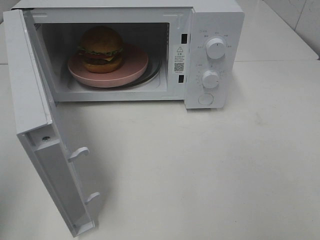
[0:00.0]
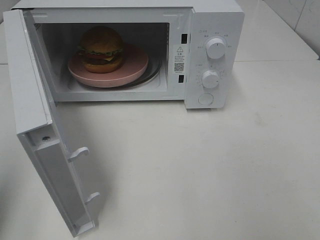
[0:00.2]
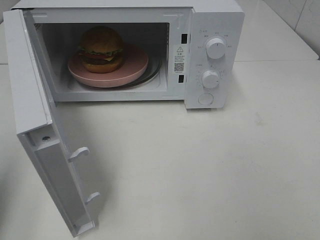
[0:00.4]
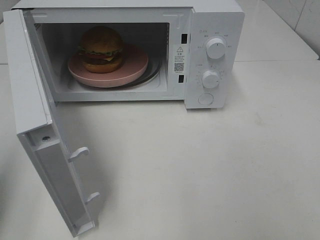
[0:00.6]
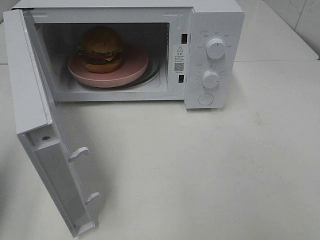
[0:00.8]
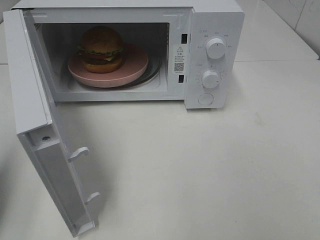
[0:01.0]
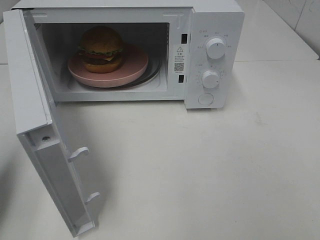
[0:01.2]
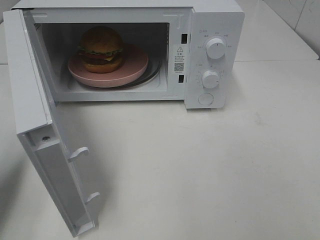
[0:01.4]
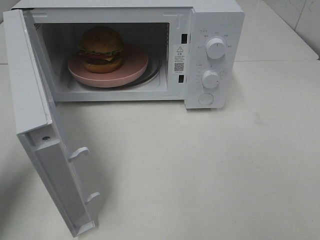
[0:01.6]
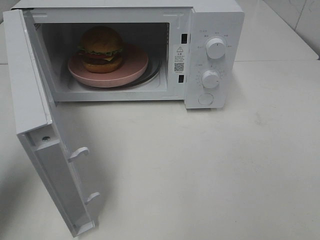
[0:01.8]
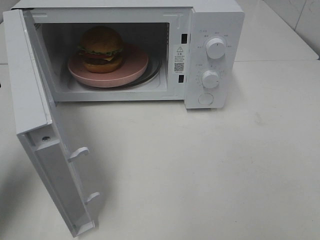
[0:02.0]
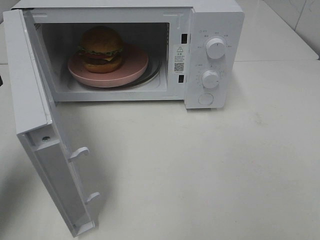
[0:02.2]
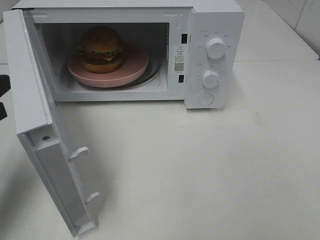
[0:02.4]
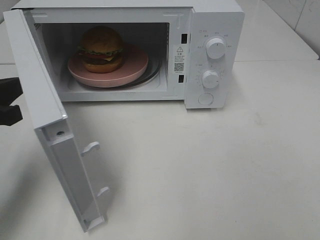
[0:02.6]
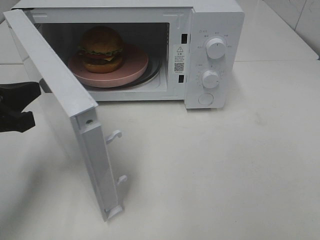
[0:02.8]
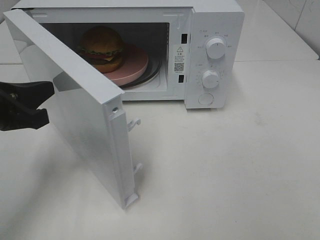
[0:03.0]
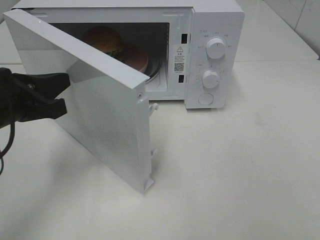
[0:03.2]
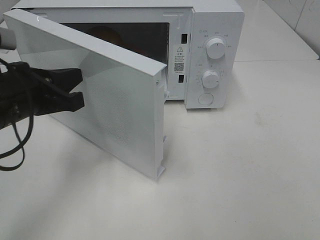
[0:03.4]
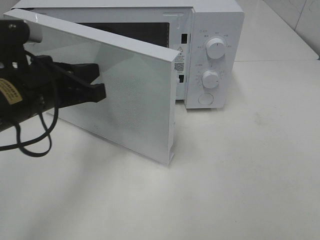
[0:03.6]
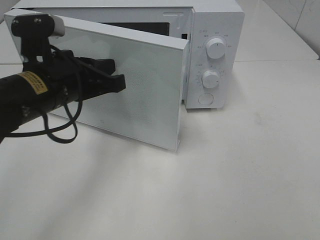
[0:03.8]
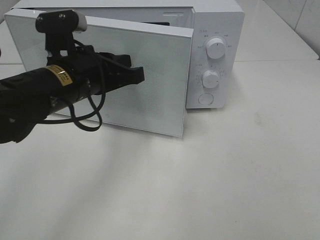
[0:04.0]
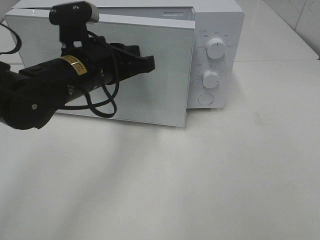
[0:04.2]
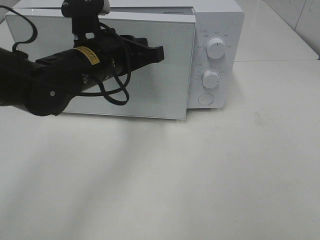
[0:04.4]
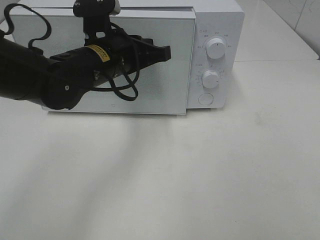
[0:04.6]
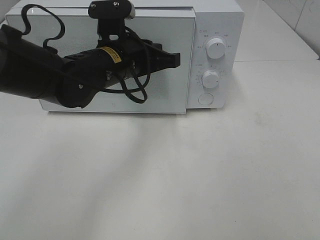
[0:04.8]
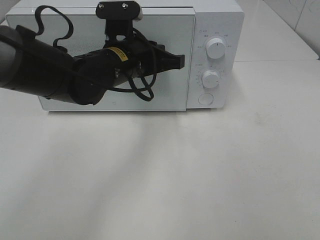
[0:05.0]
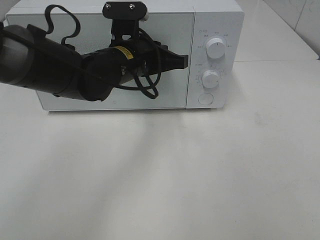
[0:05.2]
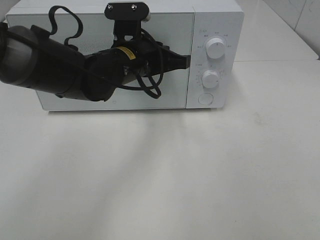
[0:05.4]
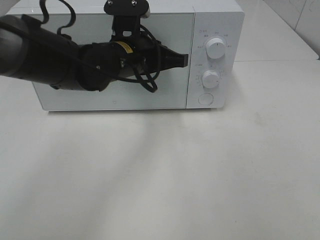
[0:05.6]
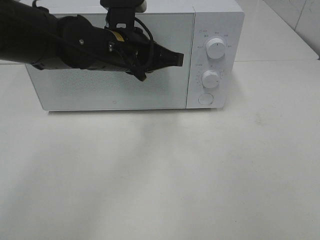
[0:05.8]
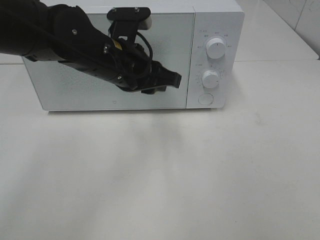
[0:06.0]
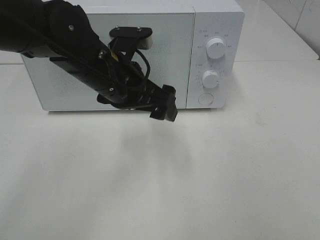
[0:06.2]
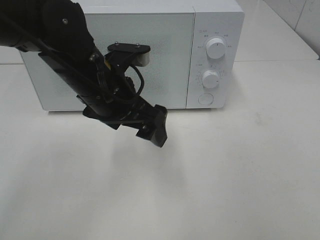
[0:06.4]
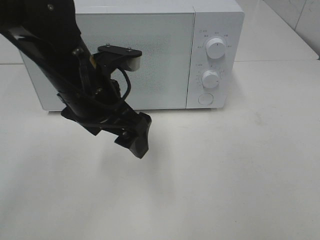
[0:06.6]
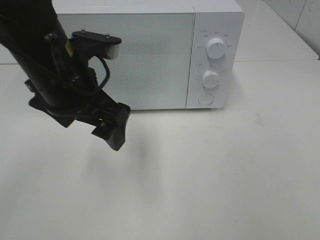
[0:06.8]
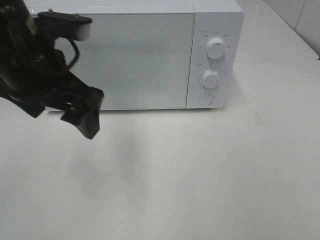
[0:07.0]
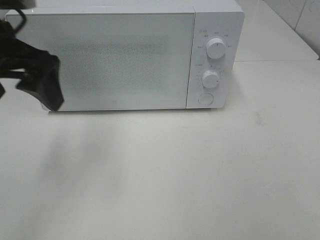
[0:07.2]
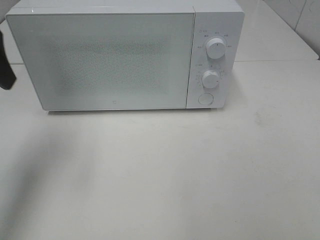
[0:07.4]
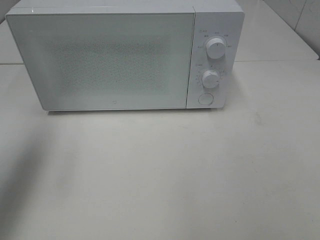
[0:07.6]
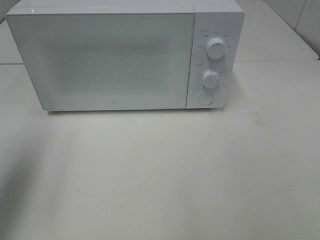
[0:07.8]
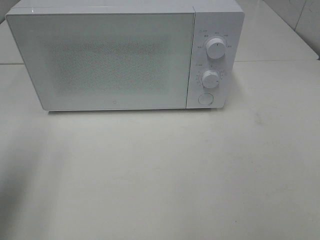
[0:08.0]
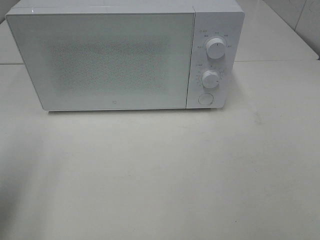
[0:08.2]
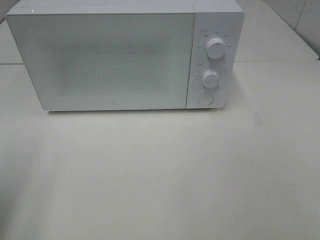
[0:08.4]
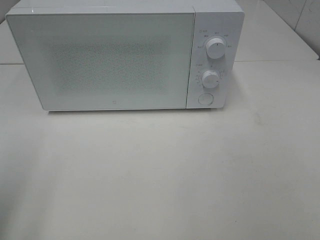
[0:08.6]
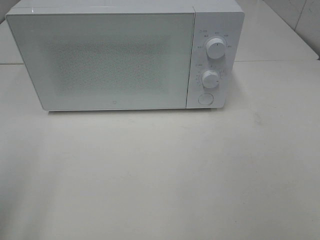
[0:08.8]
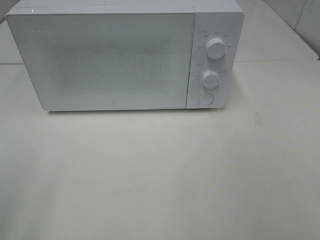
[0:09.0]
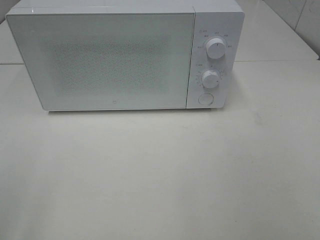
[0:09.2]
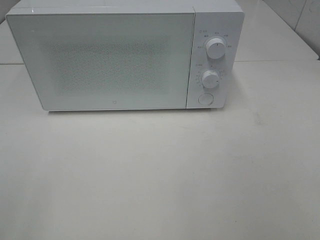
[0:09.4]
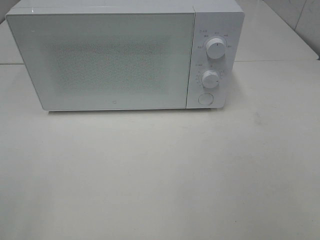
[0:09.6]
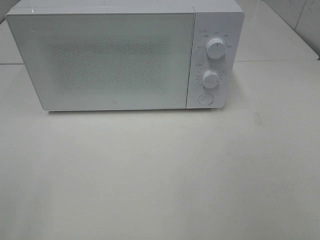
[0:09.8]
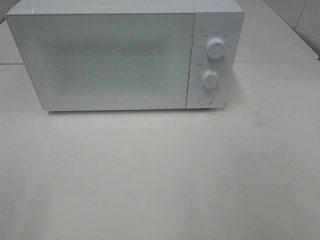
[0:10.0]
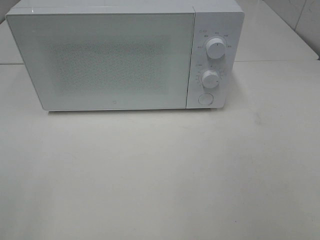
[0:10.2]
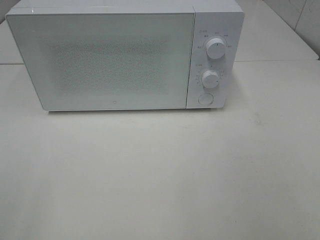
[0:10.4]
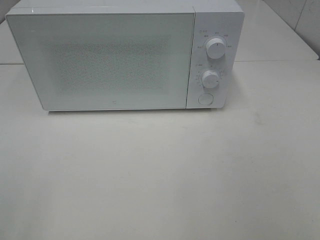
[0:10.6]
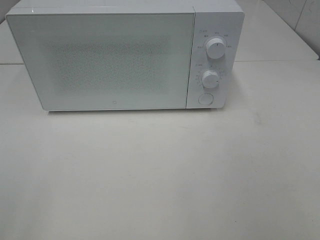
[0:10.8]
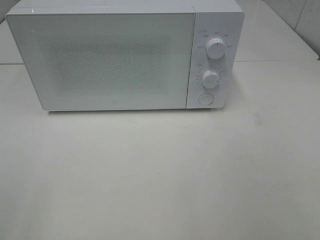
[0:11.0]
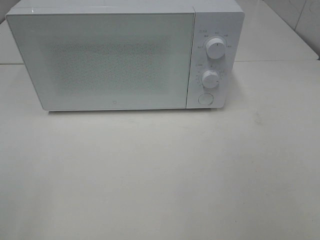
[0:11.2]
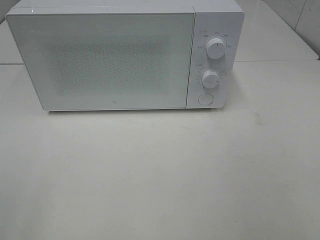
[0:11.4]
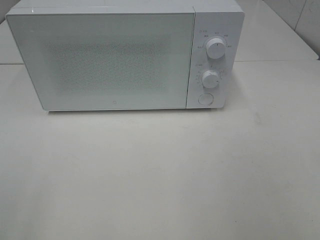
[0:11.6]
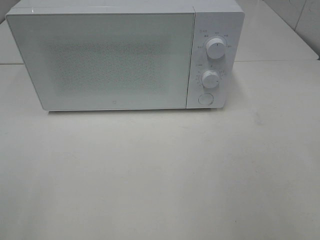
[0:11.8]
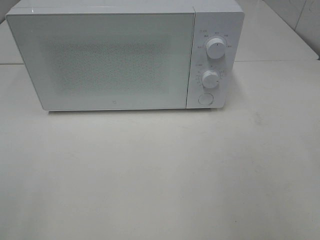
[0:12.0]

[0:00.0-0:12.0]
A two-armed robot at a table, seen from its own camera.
Task of the whole recording: Heat the burger.
Step, 0:00.0 to 0:05.6: Left hand: close the microwave door.
0:00.0 to 0:01.6: The left gripper travels forward and downward by about 15 cm.
0:01.6 to 0:03.0: The left gripper heads to the right, covering approximately 5 cm.
0:03.0 to 0:04.4: The left gripper goes some 20 cm to the right and forward.
0:06.0 to 0:07.6: The left gripper moves to the left and upward, some 25 cm, and opens its fingers.
0:07.6 to 0:09.0: The left gripper heads backward, covering some 20 cm.

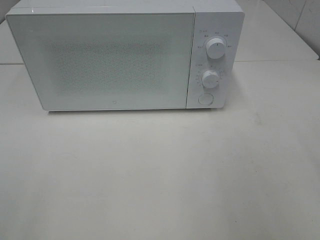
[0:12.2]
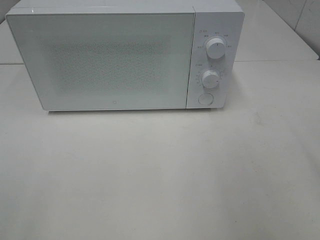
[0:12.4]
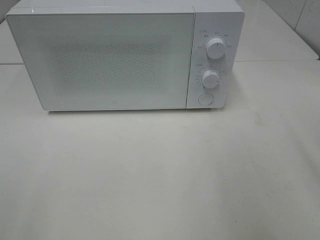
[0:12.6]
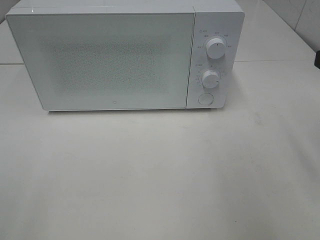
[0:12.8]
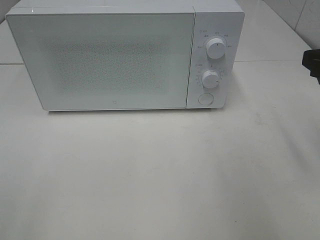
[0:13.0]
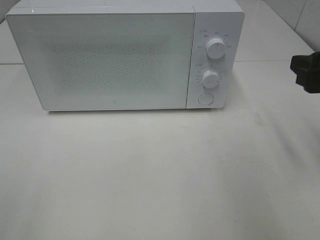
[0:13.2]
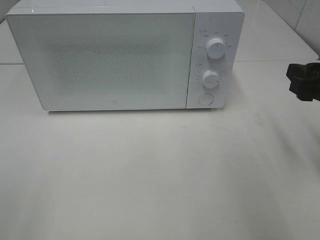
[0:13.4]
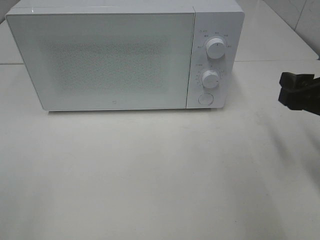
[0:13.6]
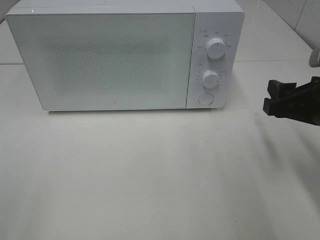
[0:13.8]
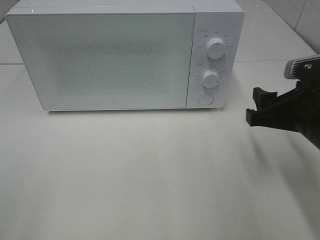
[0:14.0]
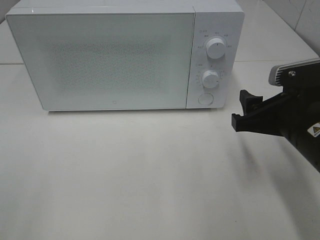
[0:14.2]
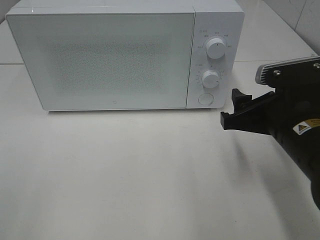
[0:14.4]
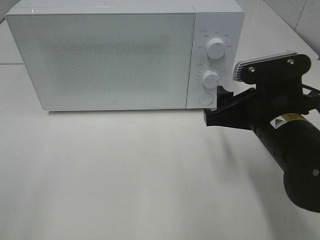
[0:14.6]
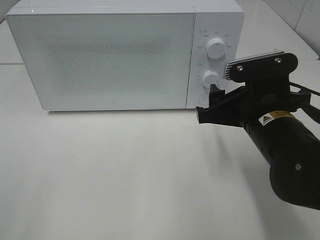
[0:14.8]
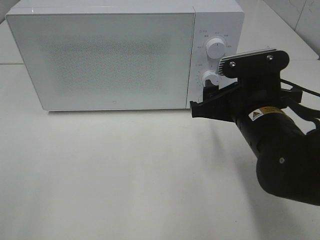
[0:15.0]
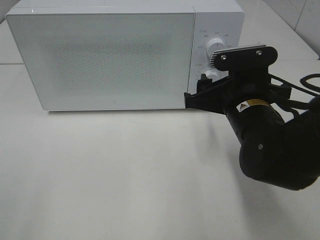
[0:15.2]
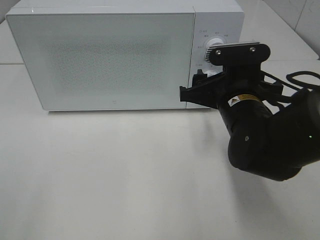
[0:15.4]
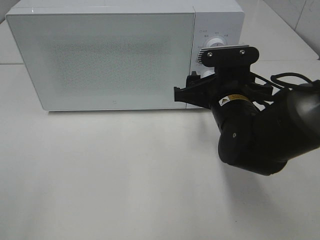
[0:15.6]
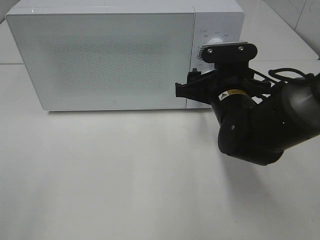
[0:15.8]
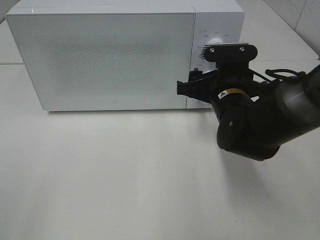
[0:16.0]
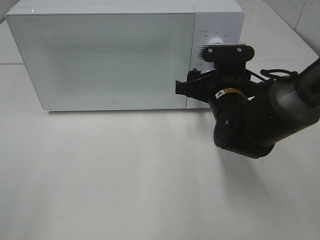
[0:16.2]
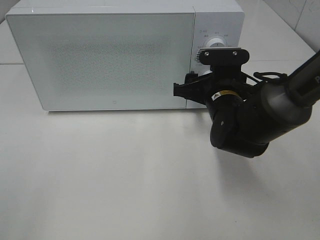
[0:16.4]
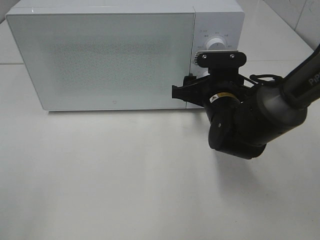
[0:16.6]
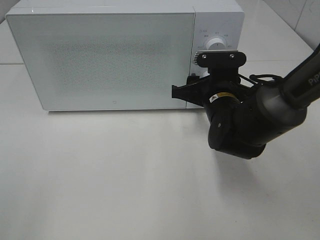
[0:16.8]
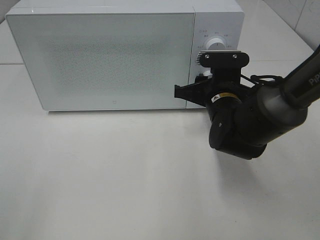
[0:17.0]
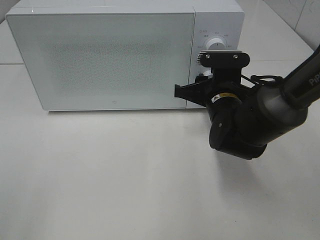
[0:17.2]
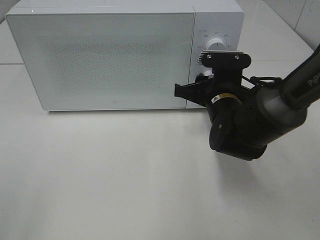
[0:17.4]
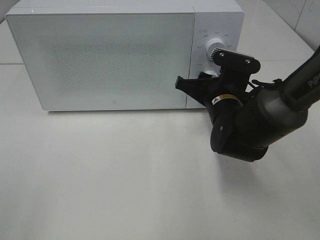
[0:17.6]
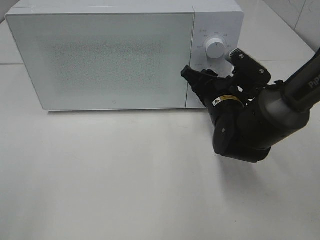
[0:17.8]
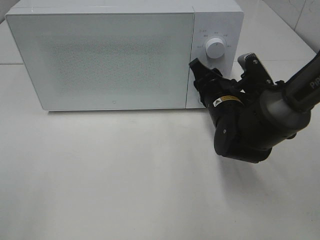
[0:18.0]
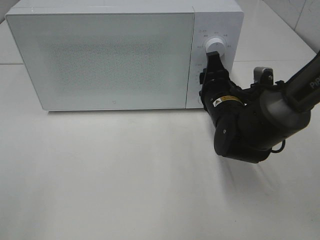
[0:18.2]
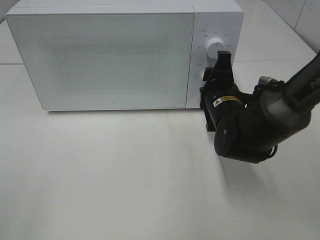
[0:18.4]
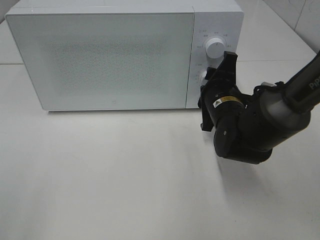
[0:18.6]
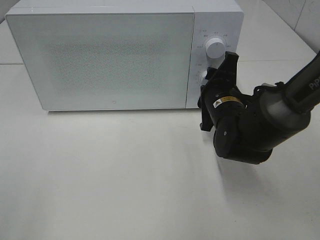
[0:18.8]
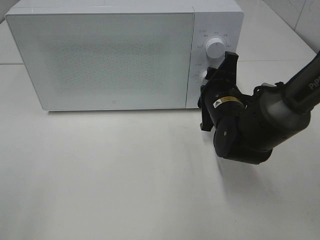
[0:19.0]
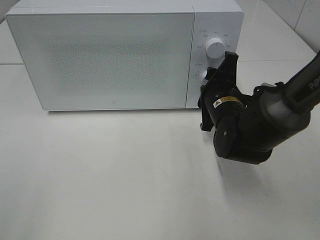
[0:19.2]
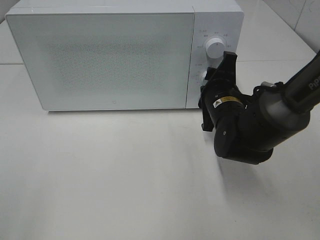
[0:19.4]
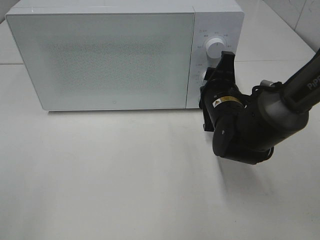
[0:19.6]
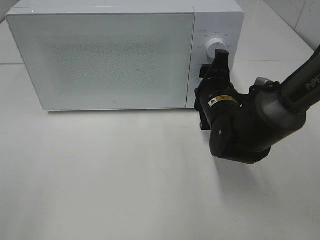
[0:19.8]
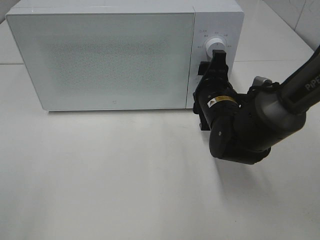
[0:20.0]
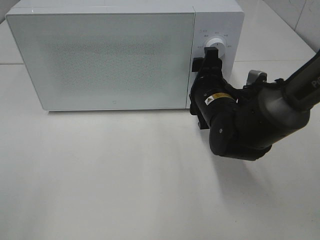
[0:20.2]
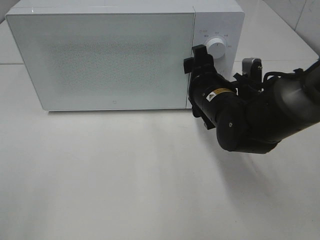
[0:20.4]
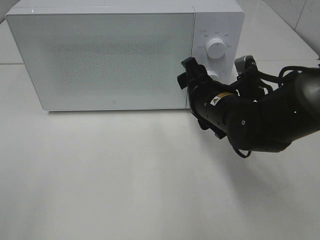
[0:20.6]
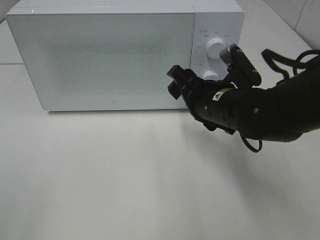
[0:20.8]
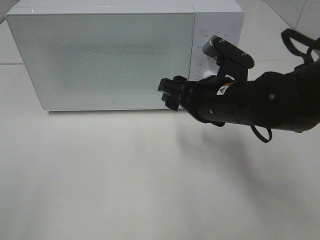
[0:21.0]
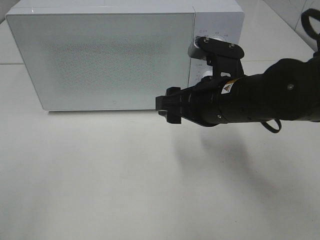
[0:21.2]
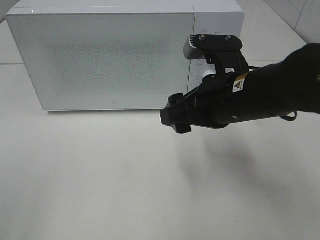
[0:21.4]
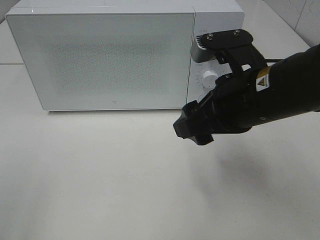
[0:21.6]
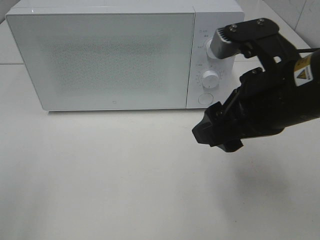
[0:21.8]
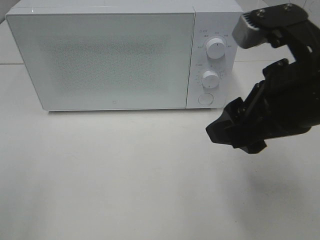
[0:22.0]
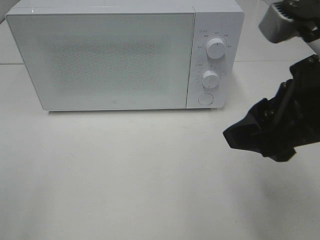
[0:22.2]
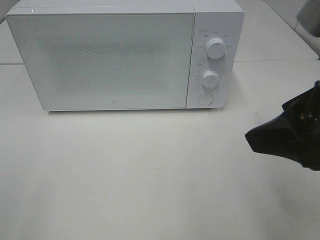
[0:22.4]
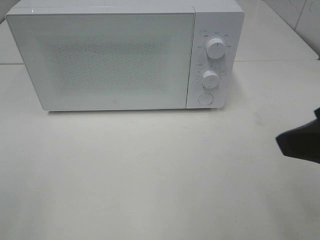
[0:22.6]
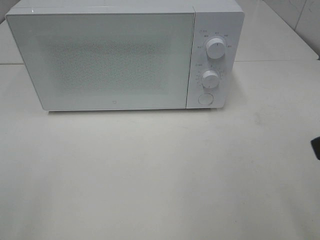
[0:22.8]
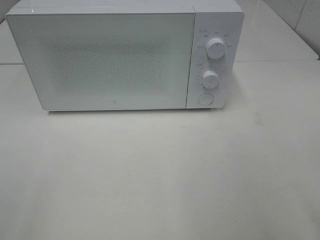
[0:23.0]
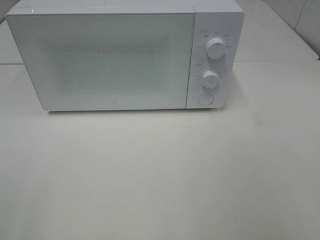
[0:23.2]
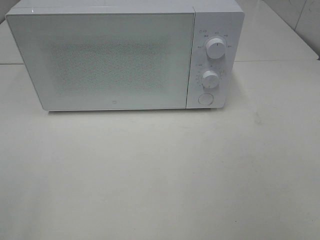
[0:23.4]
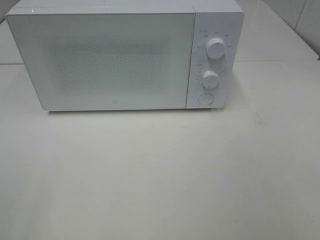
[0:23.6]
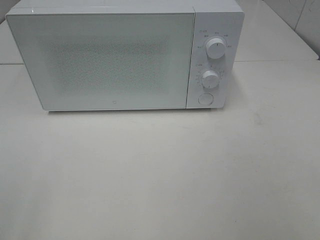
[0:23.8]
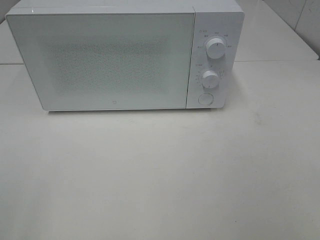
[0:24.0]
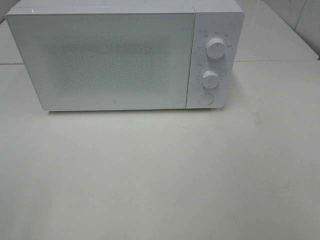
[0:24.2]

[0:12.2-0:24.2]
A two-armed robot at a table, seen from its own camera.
Task of the whole recording: Heat the burger.
Step, 0:12.2 to 0:19.8: Right hand: twist timer button.
0:12.2 to 0:13.8: The right gripper goes about 15 cm downward and forward.
0:13.8 to 0:15.2: The right gripper heads to the left, covering approximately 10 cm.
0:15.2 to 0:16.6: The right gripper is displaced forward by roughly 5 cm.
0:19.8 to 0:21.2: The right gripper shifts some 10 cm upward and backward.
0:21.2 to 0:22.6: The right gripper travels backward, upward and to the right by some 20 cm.
0:22.6 to 0:24.2: The right gripper goes some 15 cm backward and to the right.
